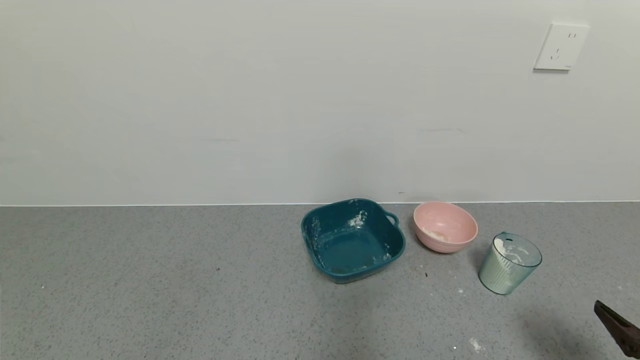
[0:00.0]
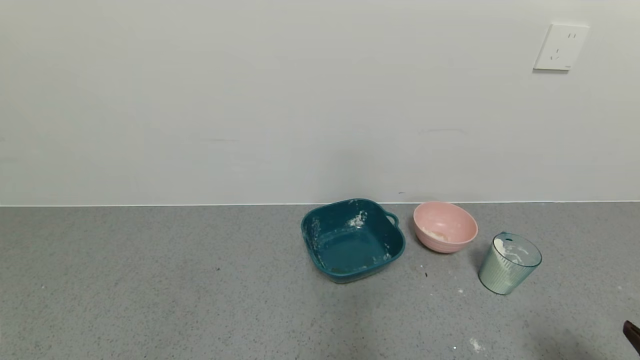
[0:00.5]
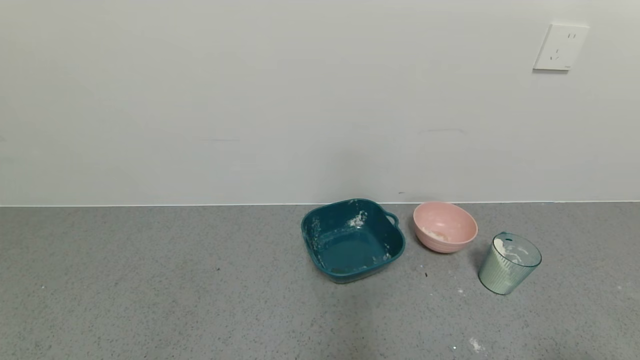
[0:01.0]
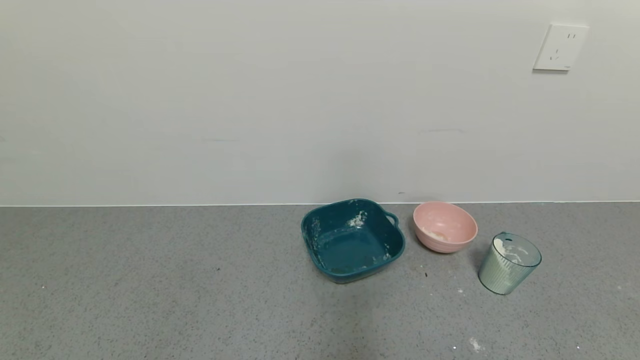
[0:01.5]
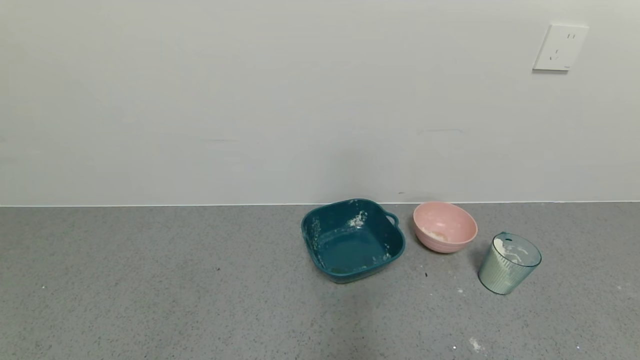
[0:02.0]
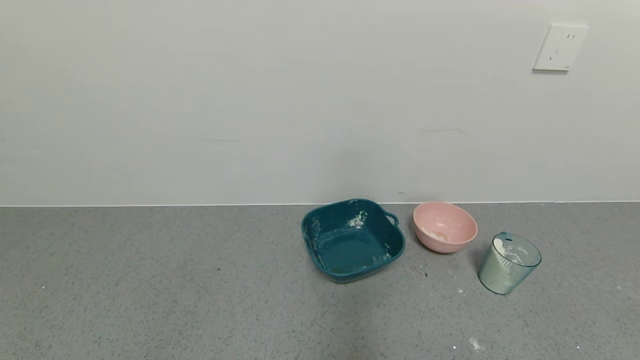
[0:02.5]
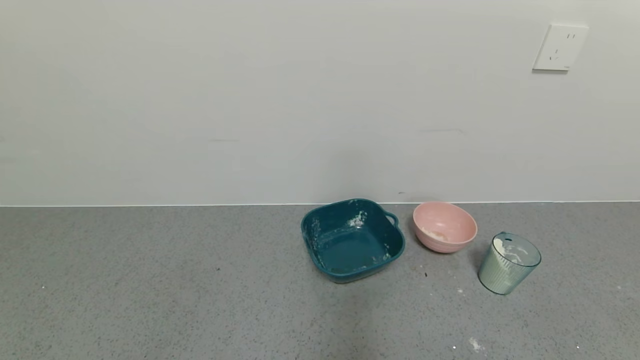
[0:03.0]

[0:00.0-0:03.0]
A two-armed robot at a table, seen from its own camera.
Task of the whole recording: use a gripper to pick up the cup and pour the powder into a bowl or tray.
0:00.0 to 0:01.5: The right gripper moves backward, approximately 10 cm.

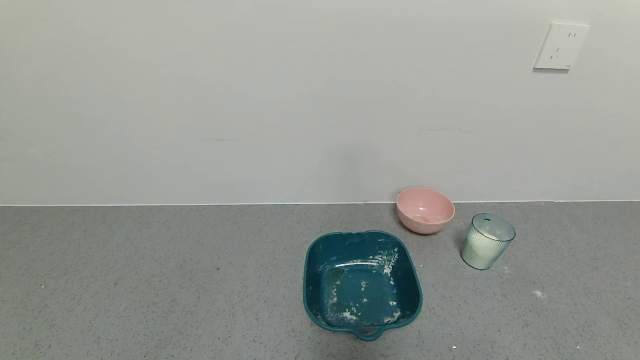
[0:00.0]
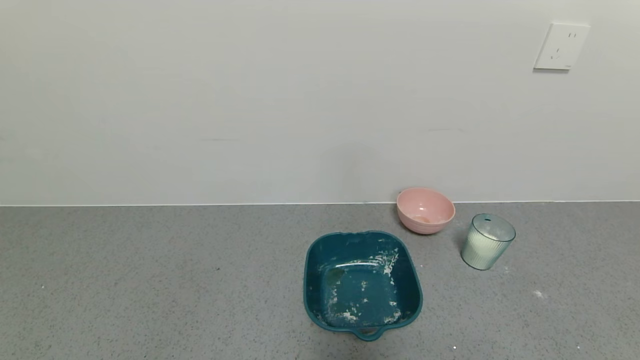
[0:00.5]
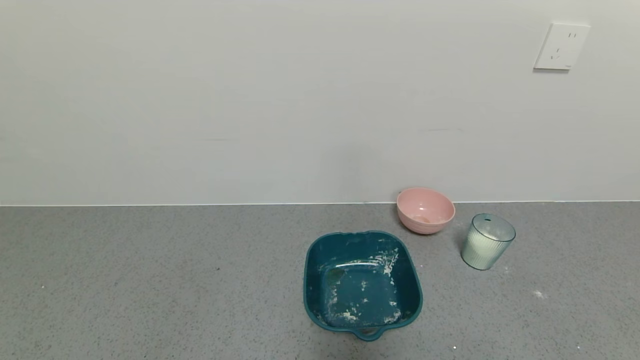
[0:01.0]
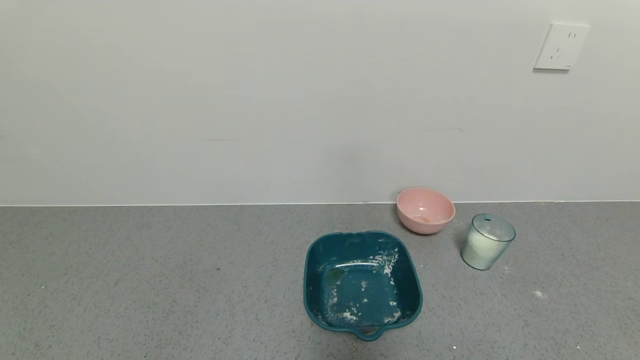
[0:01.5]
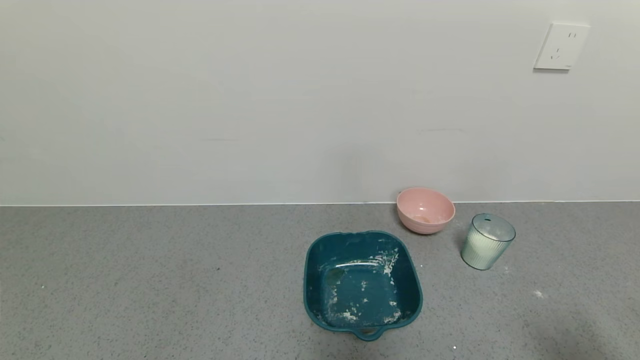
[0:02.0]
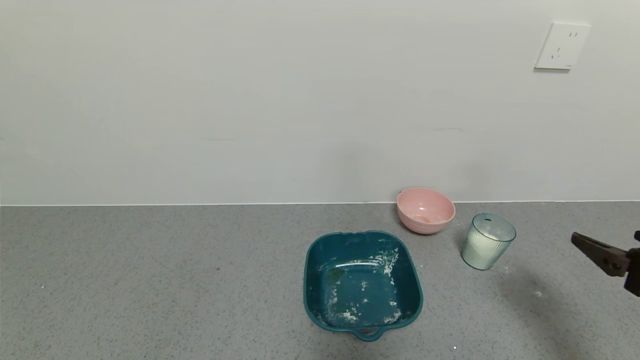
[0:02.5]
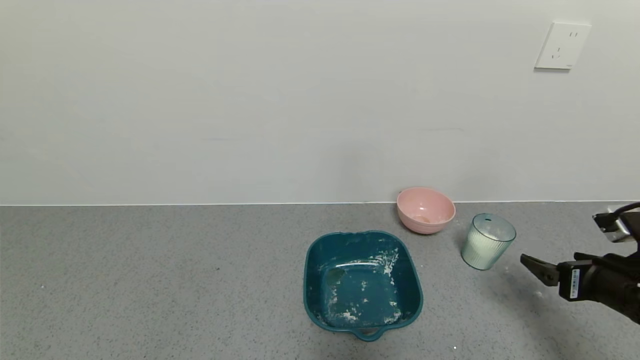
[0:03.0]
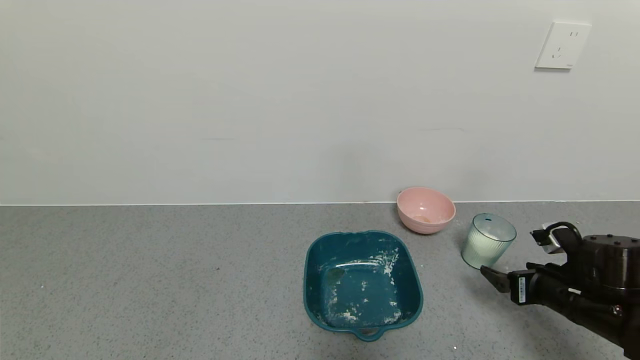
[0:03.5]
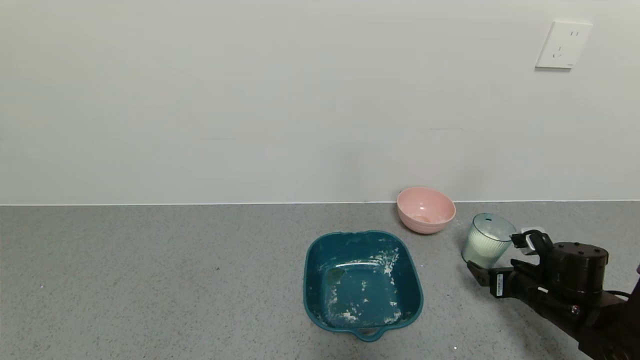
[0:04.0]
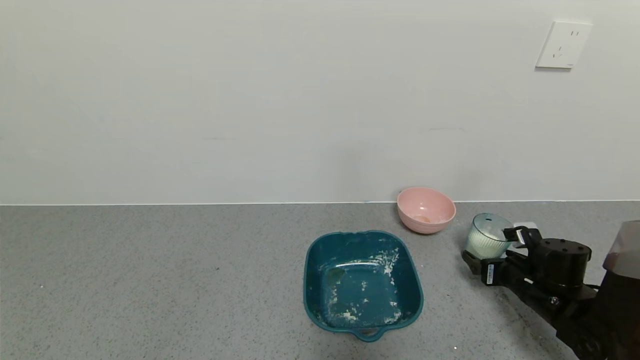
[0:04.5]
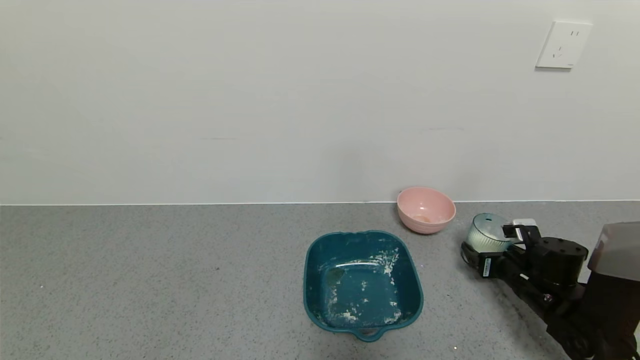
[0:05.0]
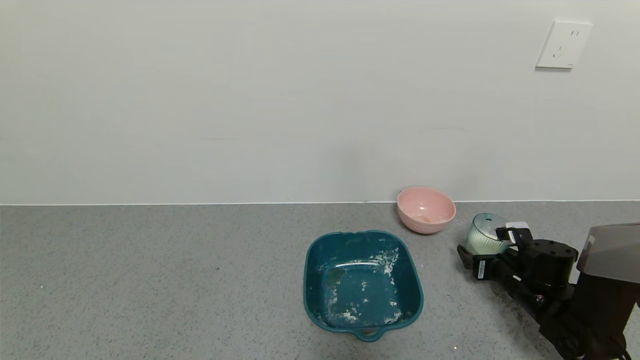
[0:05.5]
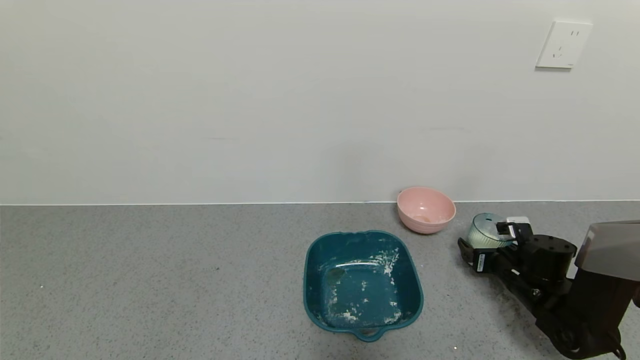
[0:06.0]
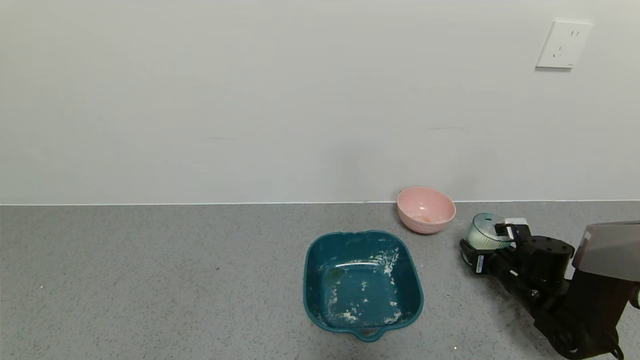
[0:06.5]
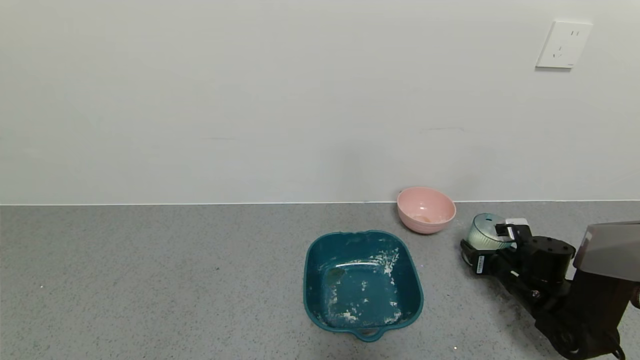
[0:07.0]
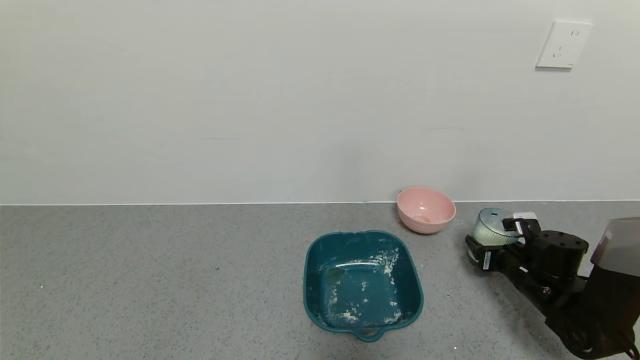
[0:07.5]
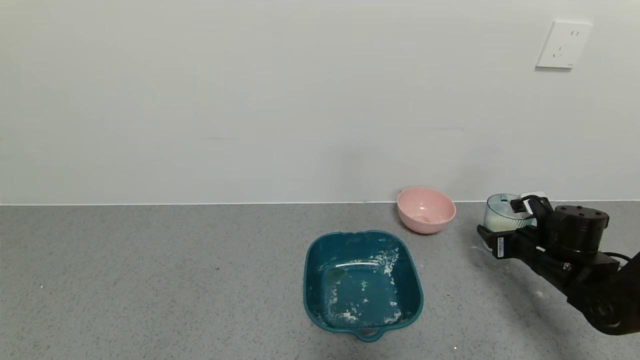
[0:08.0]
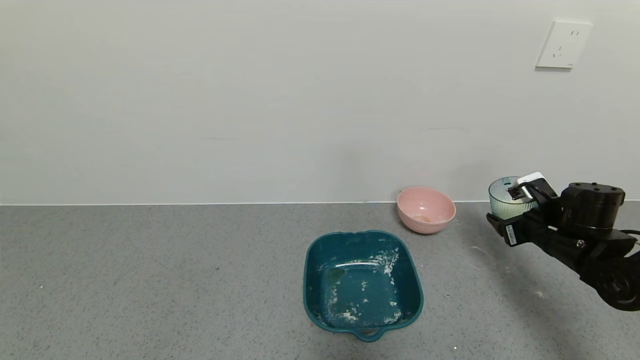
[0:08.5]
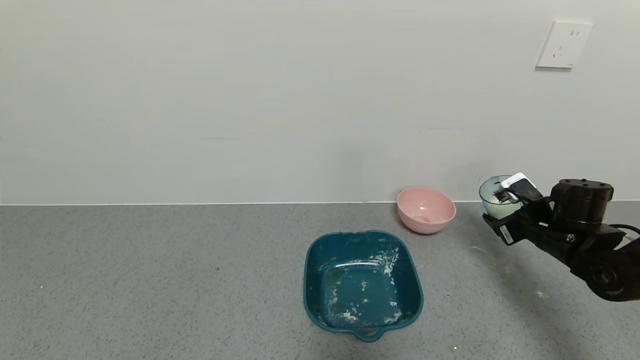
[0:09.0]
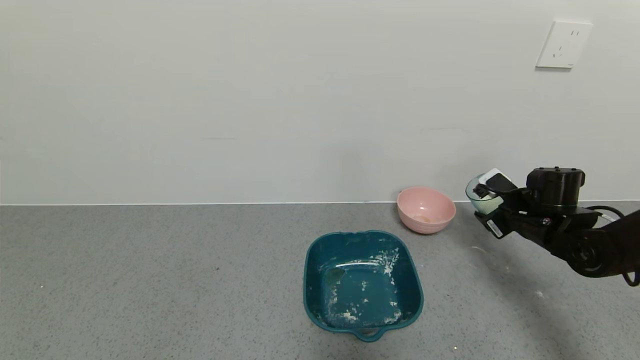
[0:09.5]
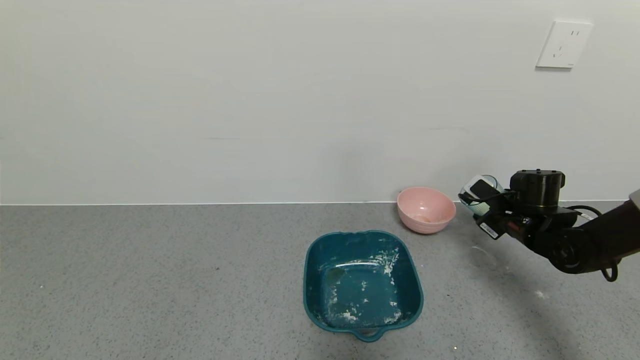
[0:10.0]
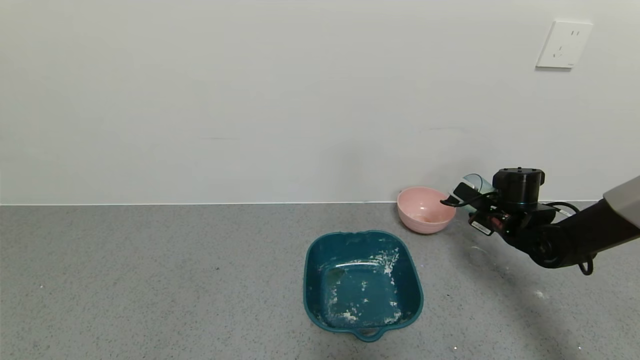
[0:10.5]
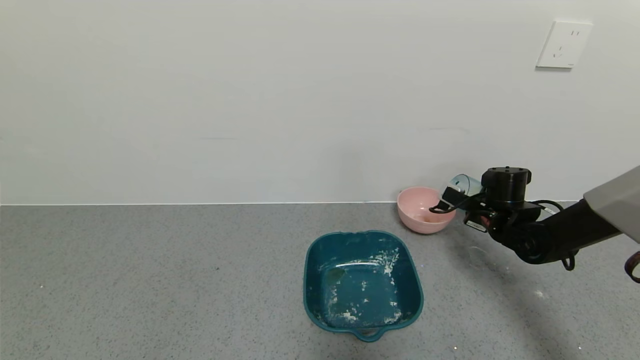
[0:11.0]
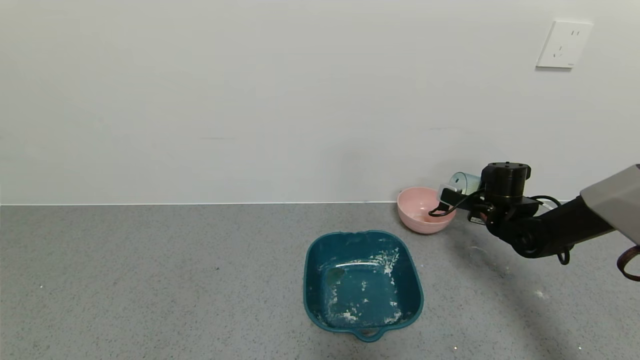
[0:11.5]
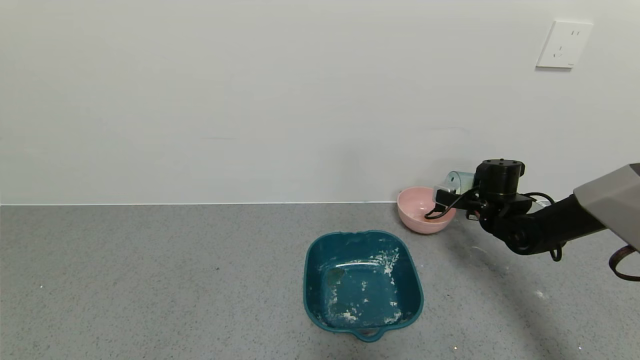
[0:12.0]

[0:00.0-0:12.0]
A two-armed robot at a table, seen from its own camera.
Task of the whole recording: use a gripper to pick up the cup and pour the powder into a bowl or tray.
0:02.0 to 0:04.0: The right gripper shifts approximately 30 cm forward and downward.
0:04.0 to 0:06.0: The right gripper shifts roughly 5 cm forward.
0:06.0 to 0:08.0: The right gripper moves upward, approximately 5 cm, and closes its fingers.
0:08.0 to 0:10.0: The right gripper travels forward by some 5 cm.
0:10.0 to 0:12.0: The right gripper heads forward, covering about 5 cm.

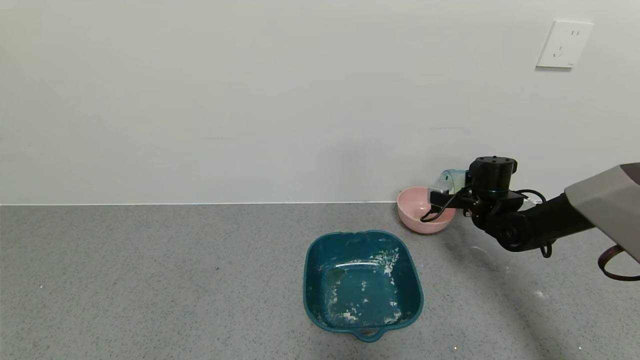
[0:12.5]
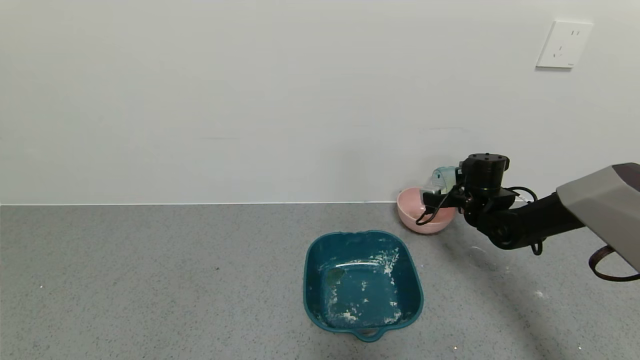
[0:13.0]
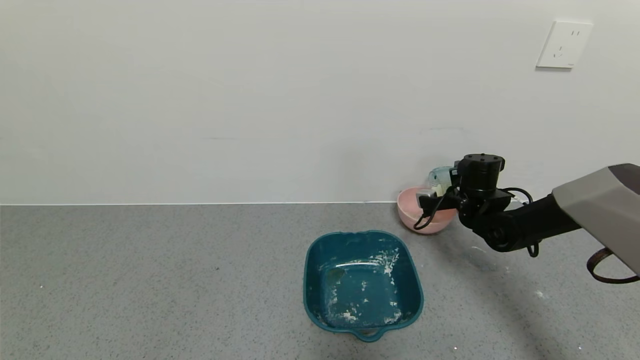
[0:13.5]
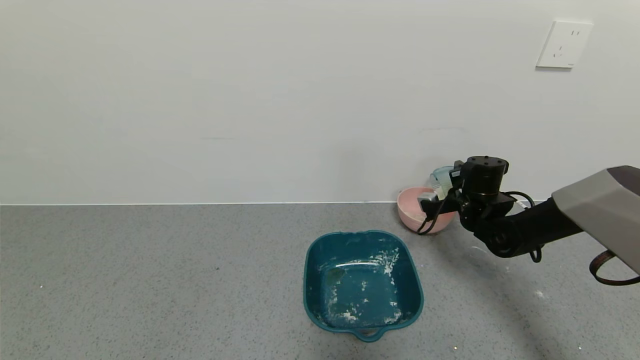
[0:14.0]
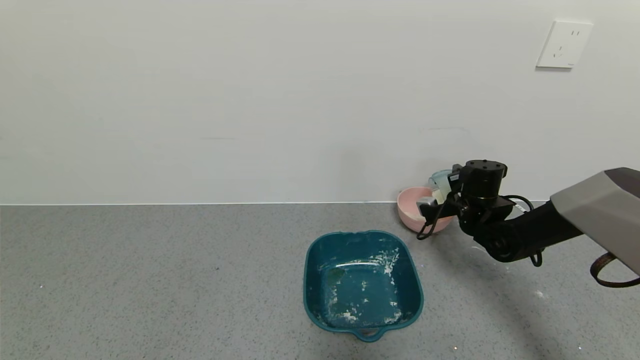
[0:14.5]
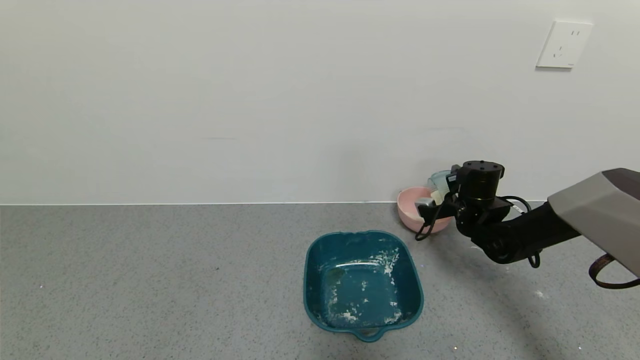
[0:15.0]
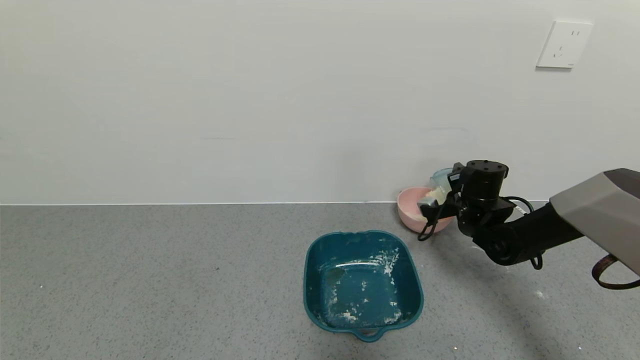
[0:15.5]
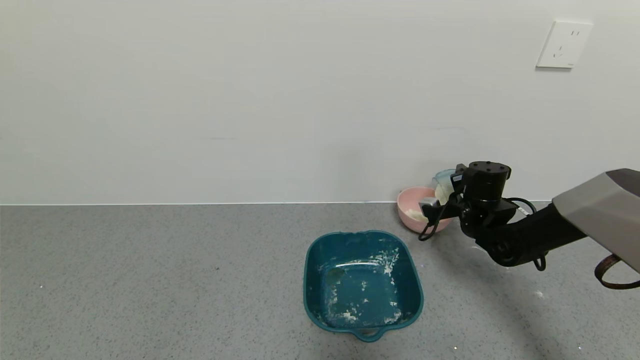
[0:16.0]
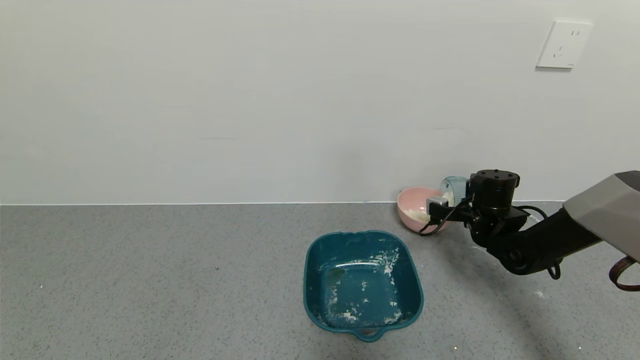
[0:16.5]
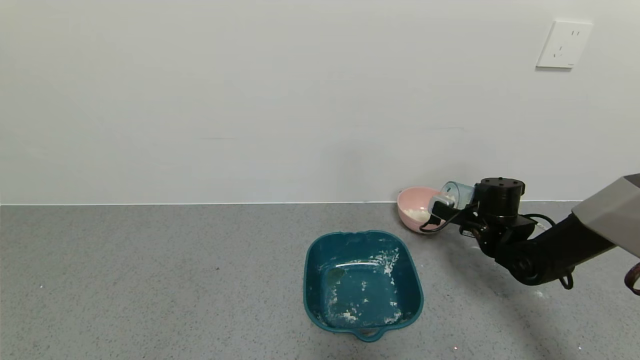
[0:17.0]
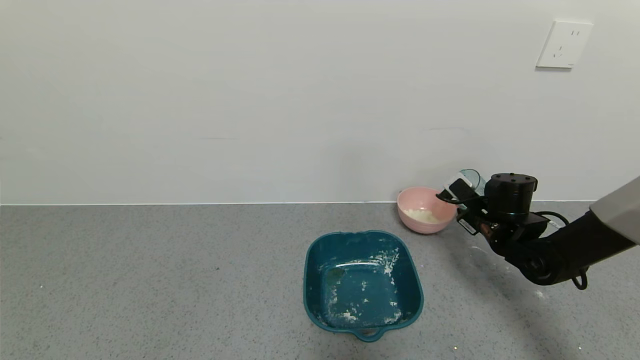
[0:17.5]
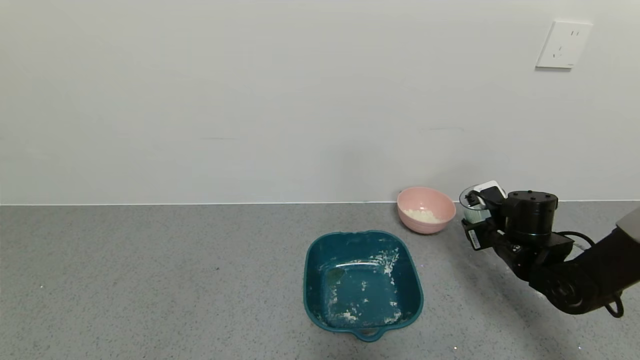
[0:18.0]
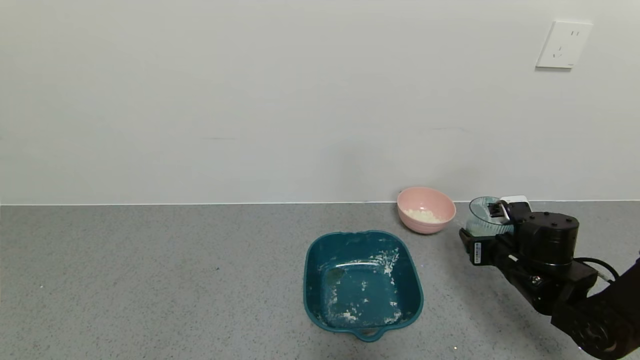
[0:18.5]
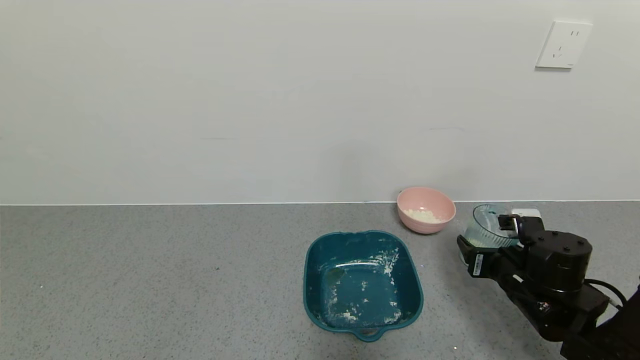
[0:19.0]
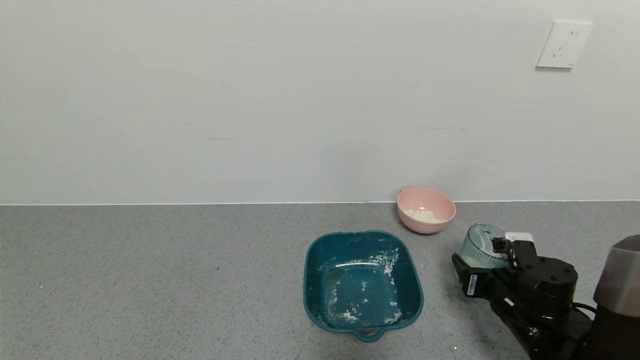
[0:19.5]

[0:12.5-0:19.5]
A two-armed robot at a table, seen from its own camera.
Task of the whole recording: use a gripper to pick up the cup and pour the powder into a bowl or tray.
Step, 0:13.0 to 0:17.5: Pour the milk powder into the blue basin with right gripper.
0:12.5 to 0:14.5: There are only small adjustments of the grippers.
0:14.5 to 0:16.0: The two grippers keep their place.
0:17.5 to 0:19.5: The right gripper heads backward and downward, covering some 15 cm.
